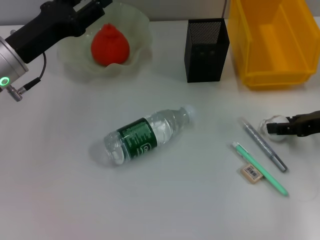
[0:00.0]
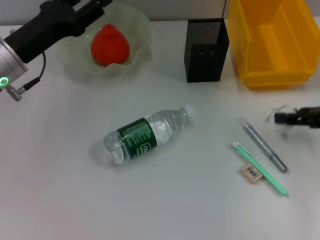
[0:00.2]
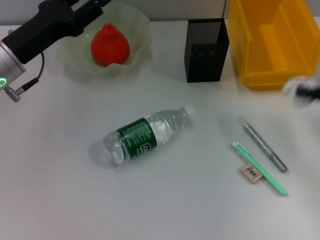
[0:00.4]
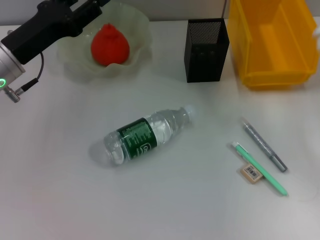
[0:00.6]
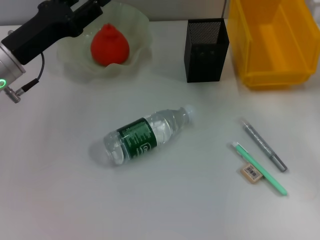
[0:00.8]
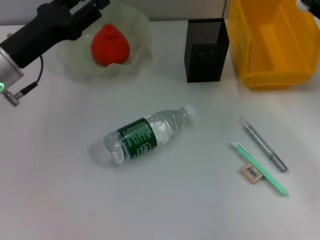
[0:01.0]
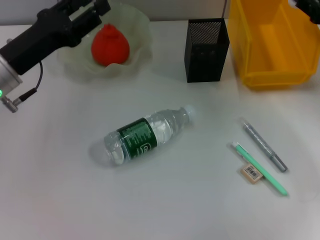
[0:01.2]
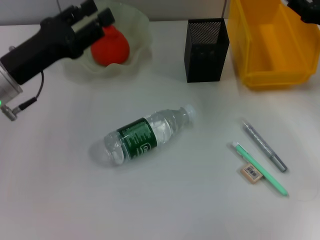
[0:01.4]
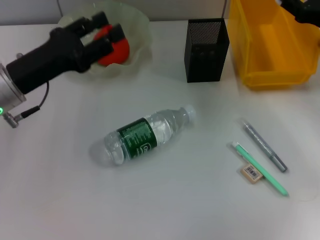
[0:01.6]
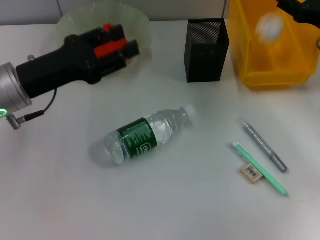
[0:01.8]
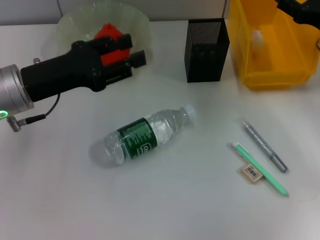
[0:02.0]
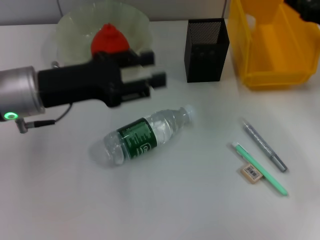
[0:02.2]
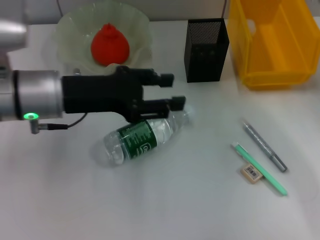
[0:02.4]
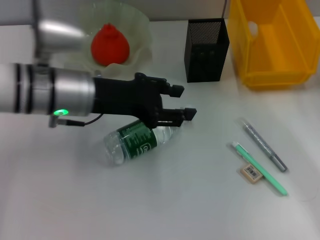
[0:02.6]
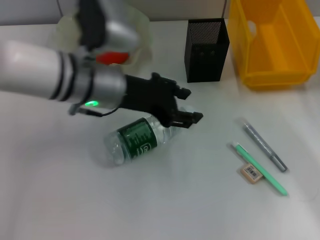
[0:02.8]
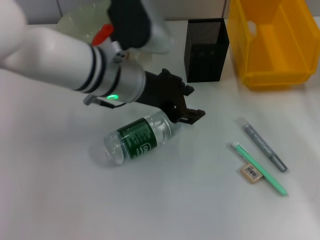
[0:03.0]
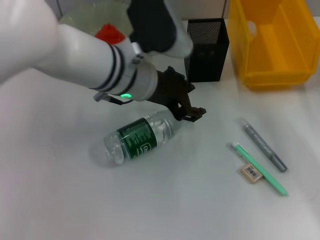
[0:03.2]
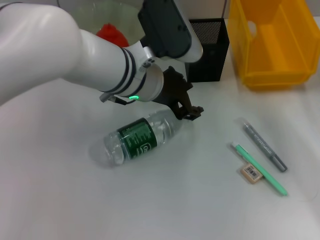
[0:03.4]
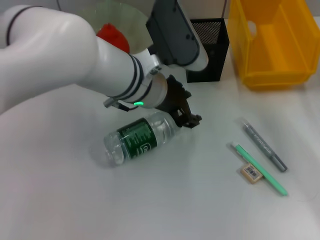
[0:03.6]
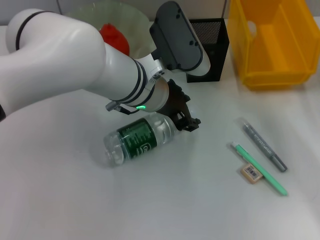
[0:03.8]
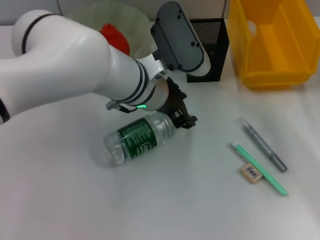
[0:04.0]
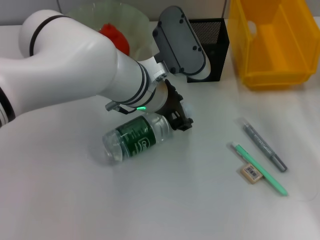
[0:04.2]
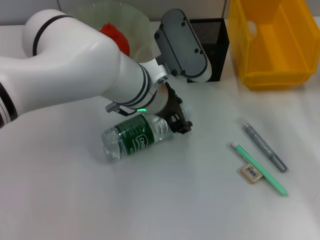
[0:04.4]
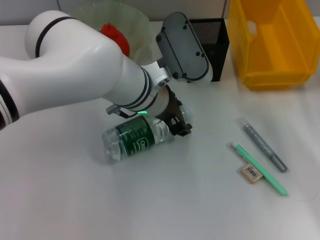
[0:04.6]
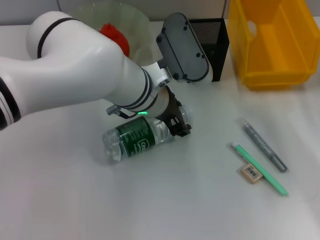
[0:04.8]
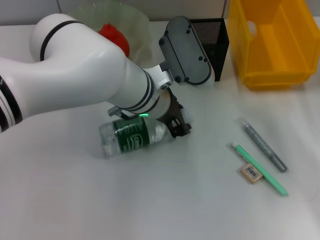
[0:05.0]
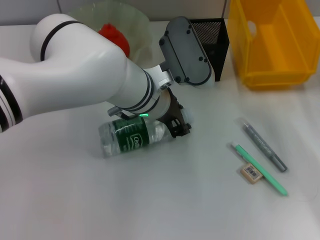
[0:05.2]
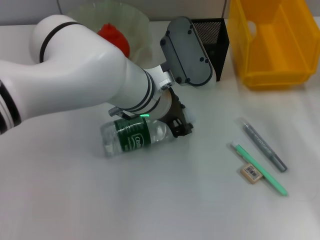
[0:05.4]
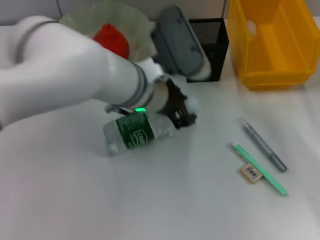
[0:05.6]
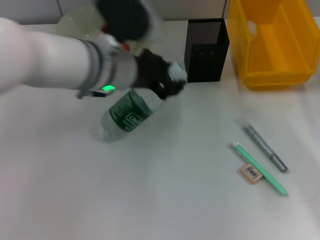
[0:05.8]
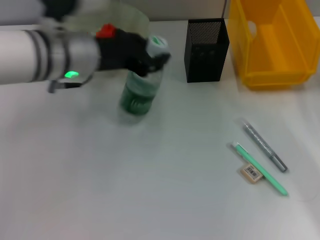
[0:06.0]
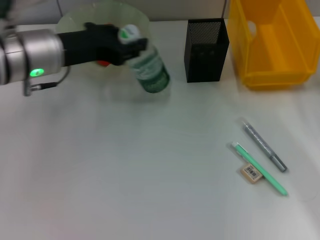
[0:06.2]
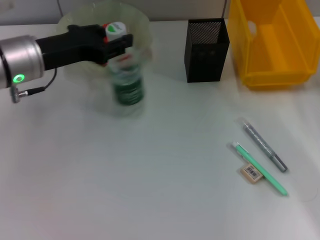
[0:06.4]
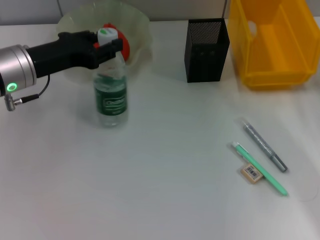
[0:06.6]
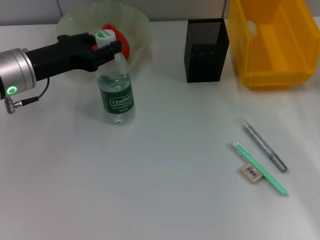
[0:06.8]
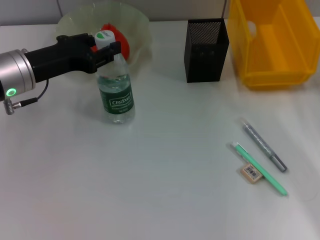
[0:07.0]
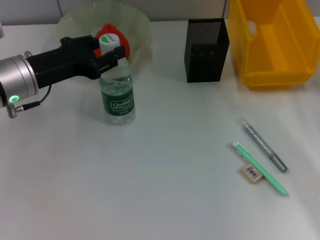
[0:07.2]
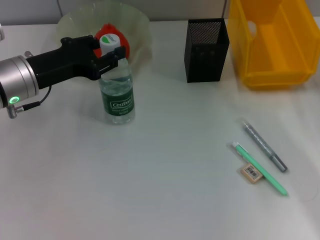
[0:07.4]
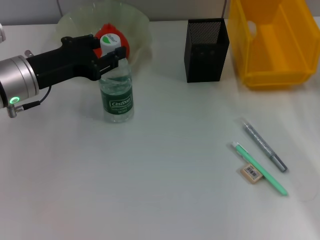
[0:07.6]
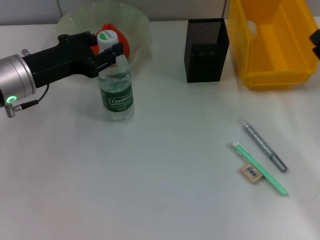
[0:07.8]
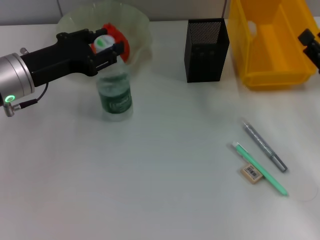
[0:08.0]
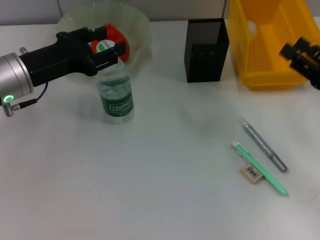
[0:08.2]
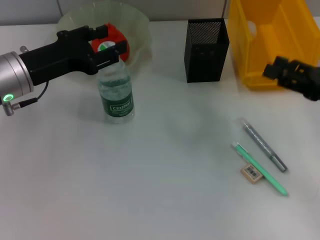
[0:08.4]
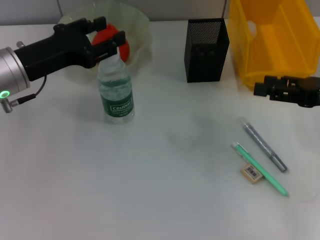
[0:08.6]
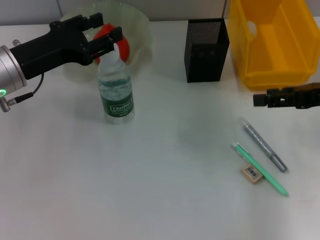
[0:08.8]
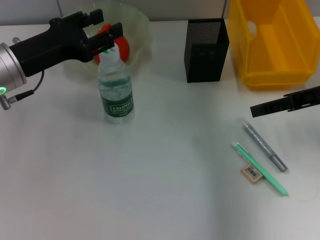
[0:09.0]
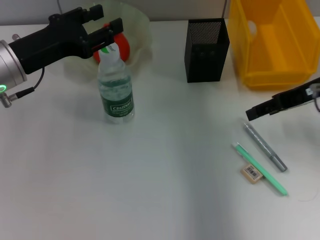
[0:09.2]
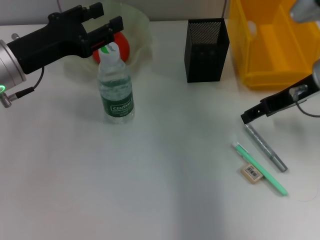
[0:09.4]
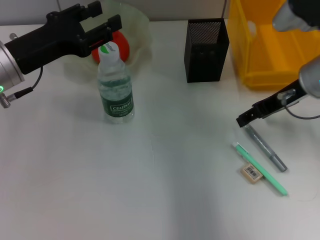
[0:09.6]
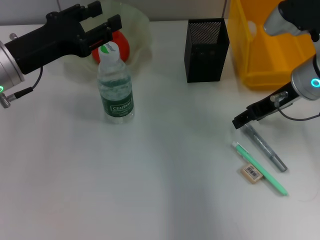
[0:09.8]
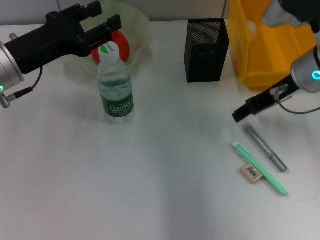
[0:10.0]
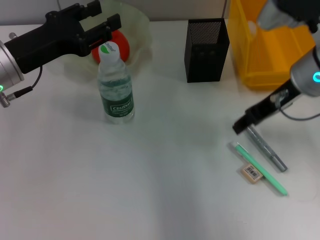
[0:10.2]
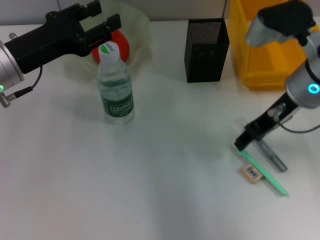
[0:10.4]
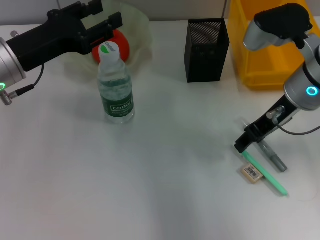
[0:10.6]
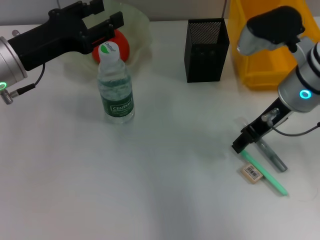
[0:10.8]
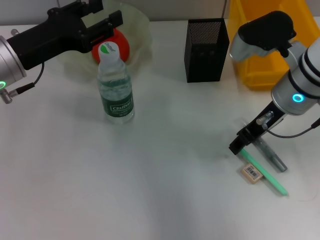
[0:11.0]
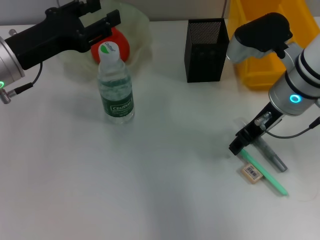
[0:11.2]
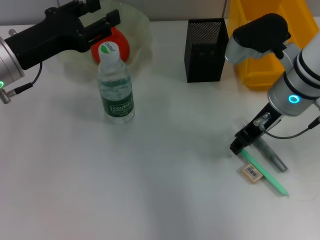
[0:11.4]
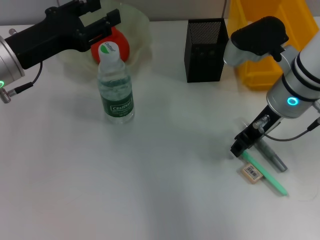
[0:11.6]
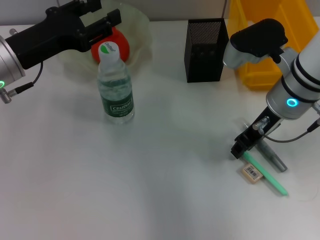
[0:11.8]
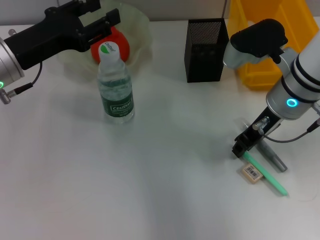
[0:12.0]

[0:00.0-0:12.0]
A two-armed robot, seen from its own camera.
Step, 0.4 to 2.2 s: Place the paper ball into the trash can with the right hand.
Step, 2.4 to 5.2 s: Grab the water bottle with the left hand.
Step, 5.6 to 8.4 s: Place the water bottle on the table with the left hand.
0.0 to 1.6 s: The right gripper moves forward, roughly 5 cm.
1.6 to 3.0 s: The right gripper heads backward and downward, covering approximately 10 cm. Meanwhile the left gripper shifts about 15 cm to the right.
3.0 to 4.4 s: The left gripper shifts by about 5 cm.
4.4 to 6.0 s: The left gripper moves to the left, roughly 10 cm.
6.0 to 7.6 s: The left gripper is displaced to the left by roughly 10 cm.
7.6 to 9.0 s: The right gripper goes about 15 cm upward and forward.
9.0 to 10.4 s: The right gripper is displaced to the left by roughly 10 cm.
10.4 to 12.0 s: The right gripper closes up.

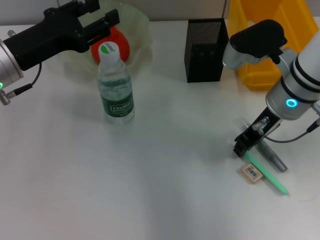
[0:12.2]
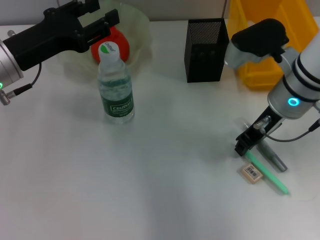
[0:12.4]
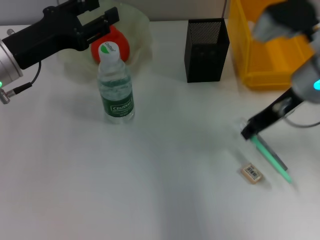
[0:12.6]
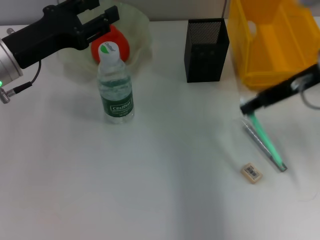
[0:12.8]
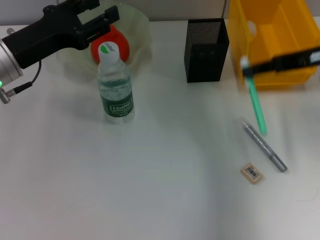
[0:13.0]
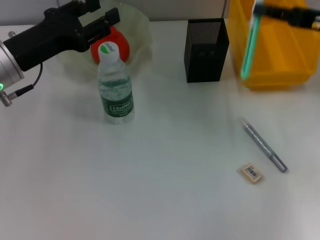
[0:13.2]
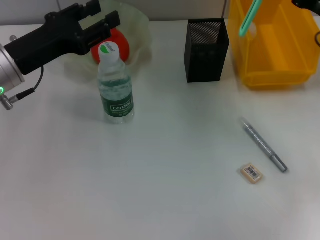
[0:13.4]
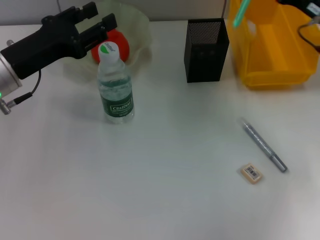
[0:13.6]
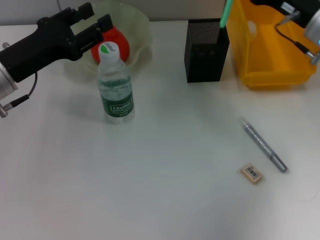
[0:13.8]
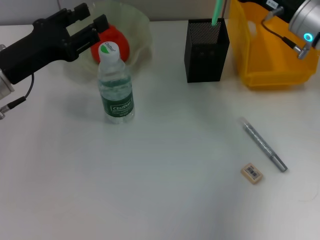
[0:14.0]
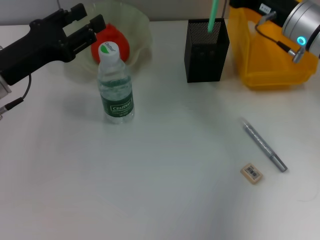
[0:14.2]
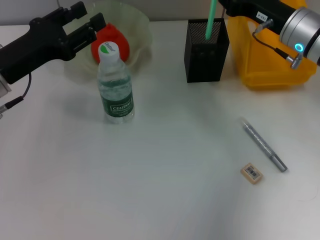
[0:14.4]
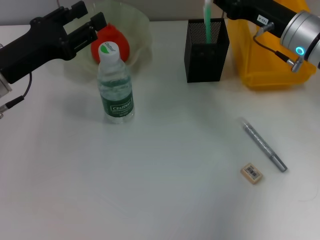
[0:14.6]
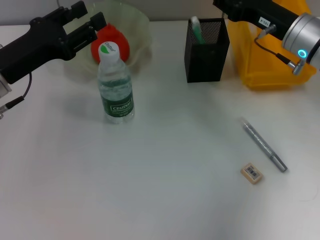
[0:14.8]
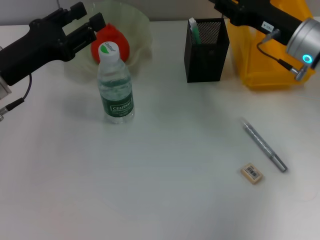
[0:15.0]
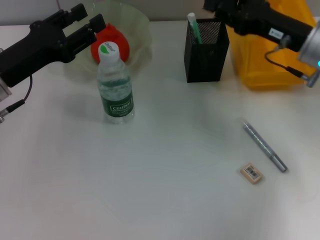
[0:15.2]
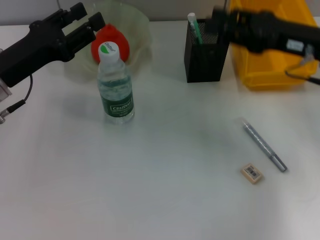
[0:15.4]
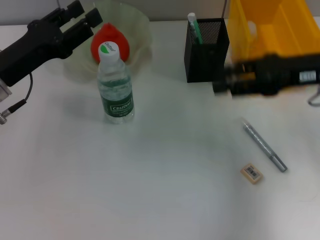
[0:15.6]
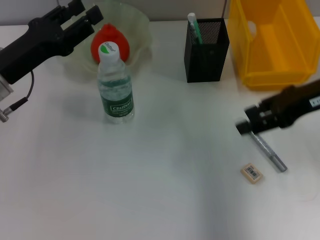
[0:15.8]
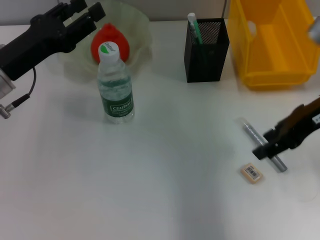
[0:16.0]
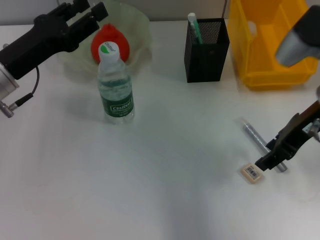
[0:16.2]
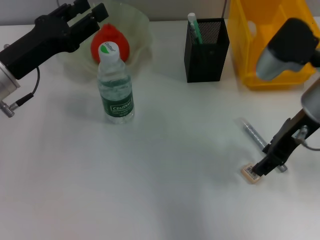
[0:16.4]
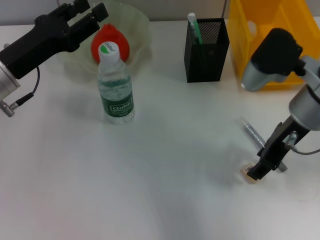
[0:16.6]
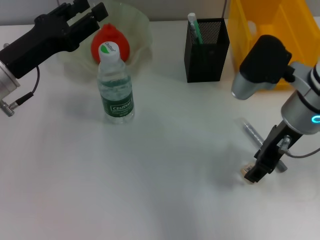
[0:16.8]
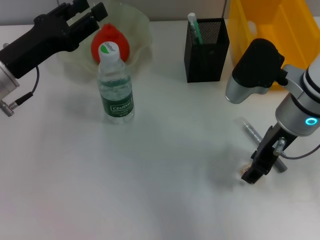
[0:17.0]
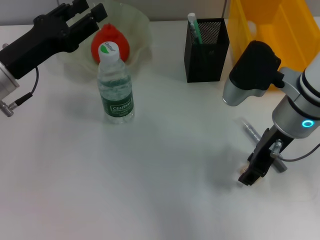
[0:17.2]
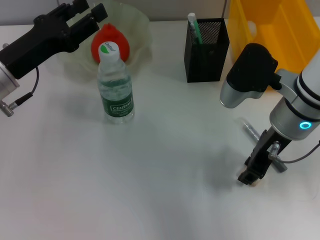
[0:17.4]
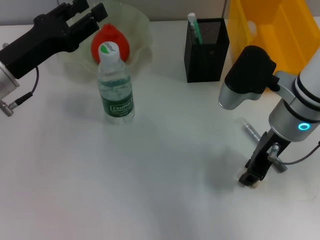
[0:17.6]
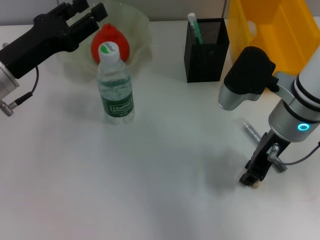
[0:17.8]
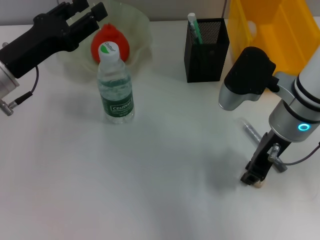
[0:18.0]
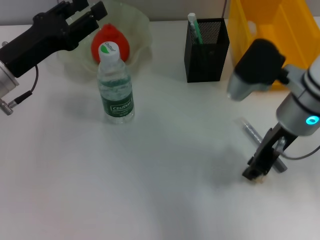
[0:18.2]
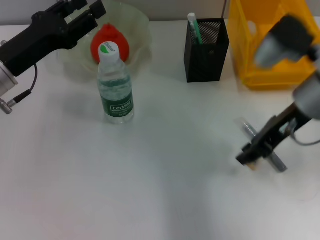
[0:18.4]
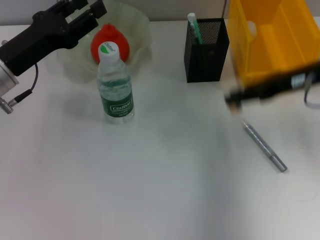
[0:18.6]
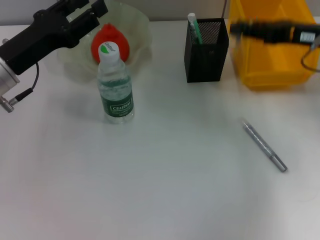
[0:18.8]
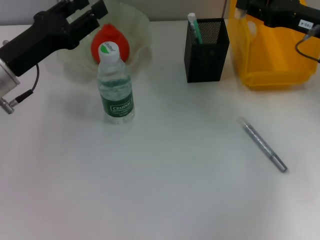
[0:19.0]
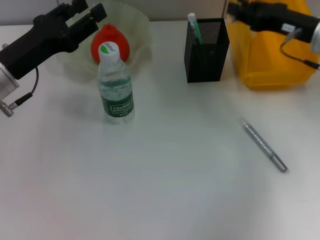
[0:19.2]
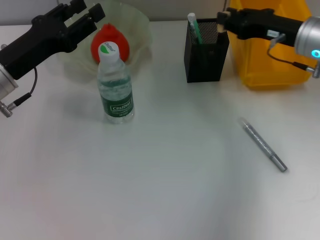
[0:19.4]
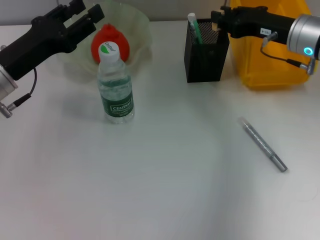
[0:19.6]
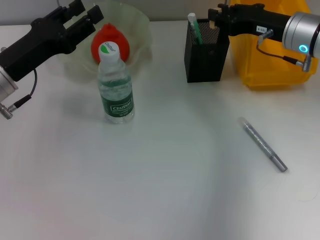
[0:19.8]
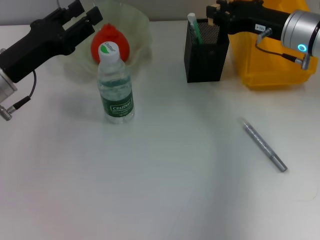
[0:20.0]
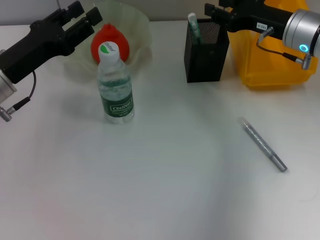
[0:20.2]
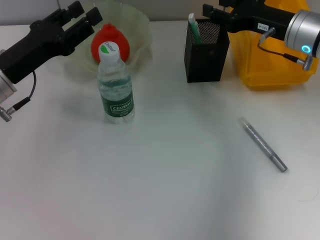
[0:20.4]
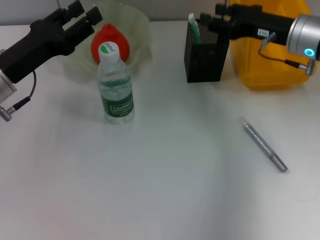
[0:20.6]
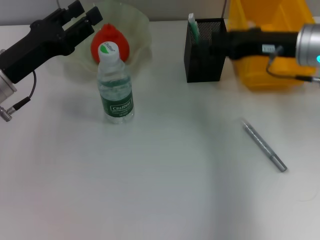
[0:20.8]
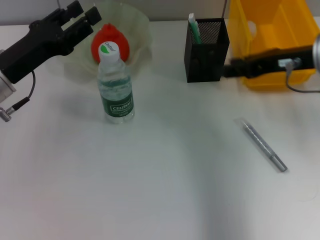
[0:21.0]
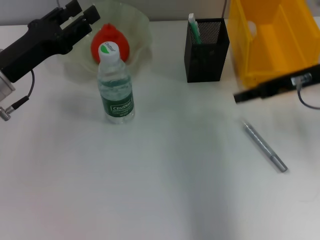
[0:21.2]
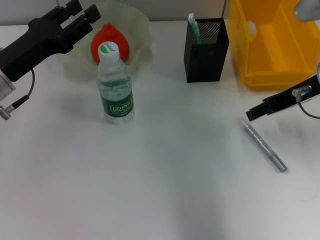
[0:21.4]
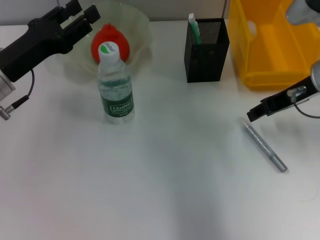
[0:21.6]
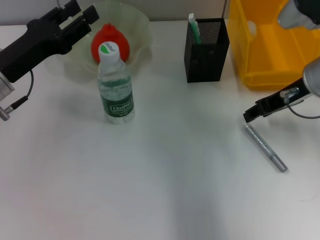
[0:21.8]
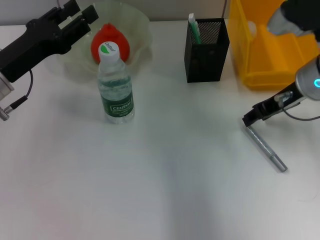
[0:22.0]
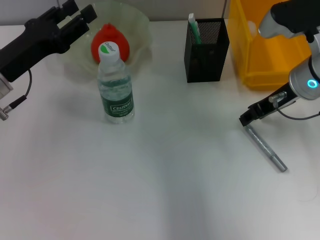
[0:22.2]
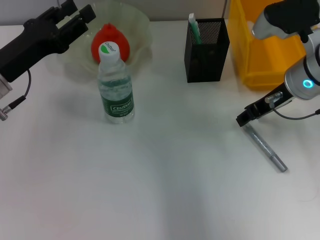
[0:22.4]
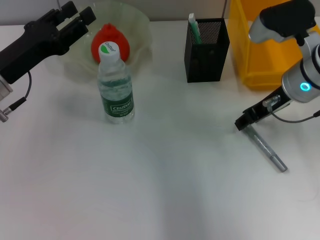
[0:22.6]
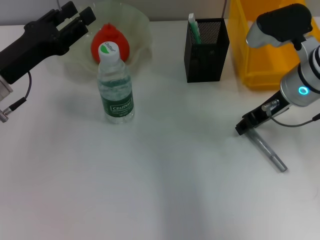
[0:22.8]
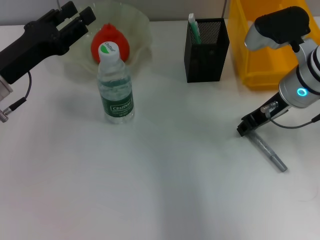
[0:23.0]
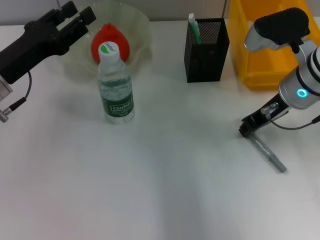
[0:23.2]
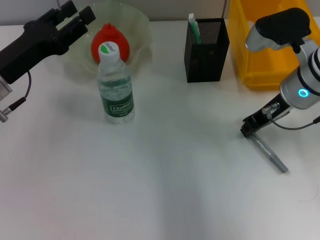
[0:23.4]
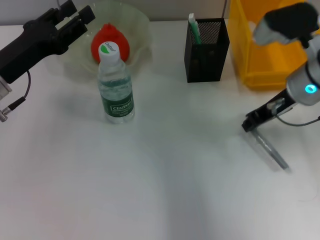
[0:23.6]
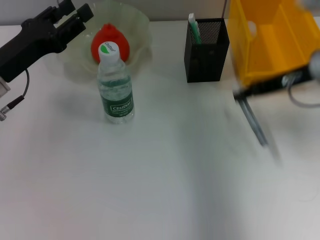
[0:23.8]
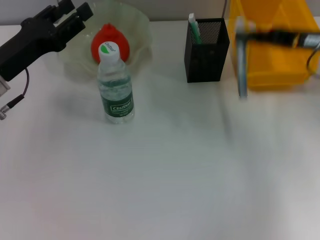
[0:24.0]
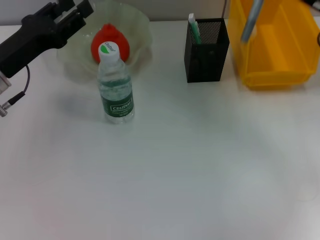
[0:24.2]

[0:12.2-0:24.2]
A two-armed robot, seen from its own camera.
Step, 12.6 to 15.0 s: Place the blue utility knife into the pen holder with the right hand.
Step, 15.2 to 18.2 s: Grab the eraser with the right hand.
Step, 18.4 to 20.4 s: Put the eraser into the pen holder with the right hand.
Step, 20.6 to 23.6 s: Grab the gray glue with the right hand.
12.2 to 13.8 s: The right gripper travels to the right by about 5 cm.
13.8 to 15.2 s: The grippers stay close to where they were, moving slightly.
15.2 to 16.6 s: The right gripper heads to the left, covering about 5 cm.
16.6 to 18.2 s: The right gripper closes.
18.2 to 19.8 s: The right gripper moves forward, roughly 10 cm.
19.8 to 21.2 s: The right gripper shifts roughly 10 cm backward and upward.
21.2 to 22.6 s: The right gripper changes place by about 5 cm.
22.6 to 24.2 s: The right gripper goes about 10 cm to the right, and closes.
